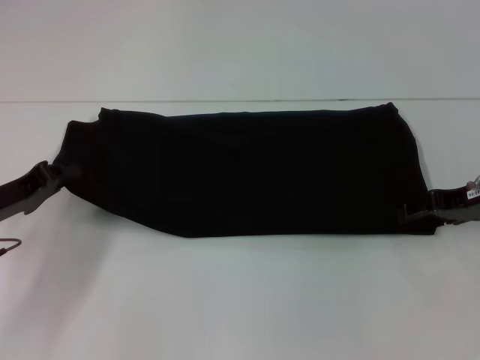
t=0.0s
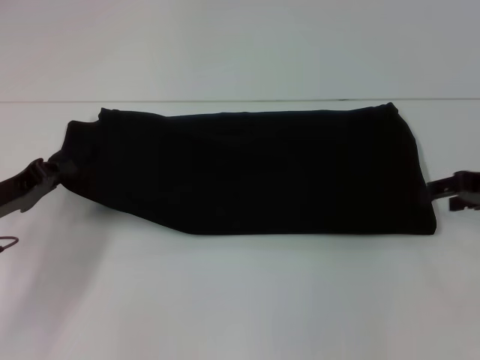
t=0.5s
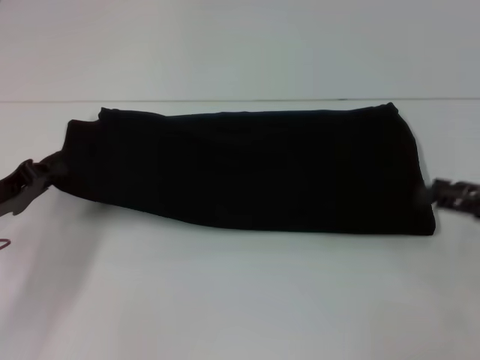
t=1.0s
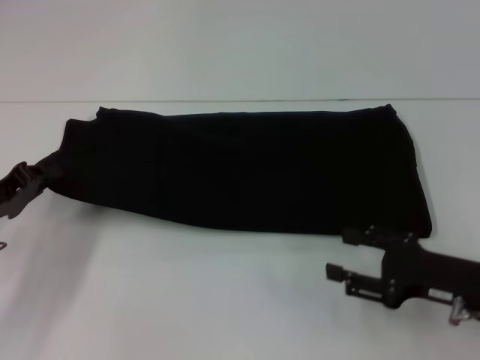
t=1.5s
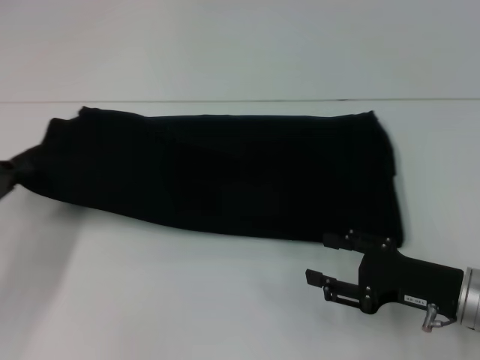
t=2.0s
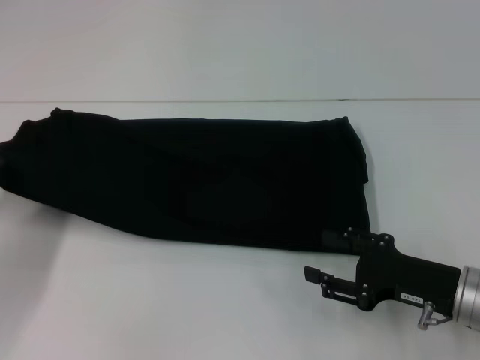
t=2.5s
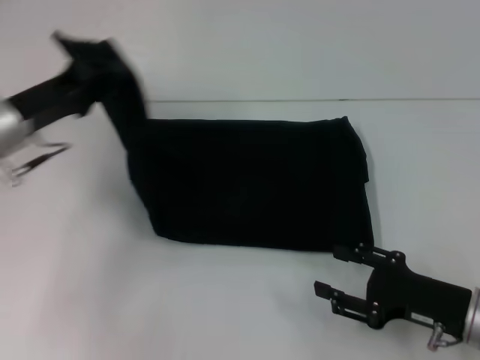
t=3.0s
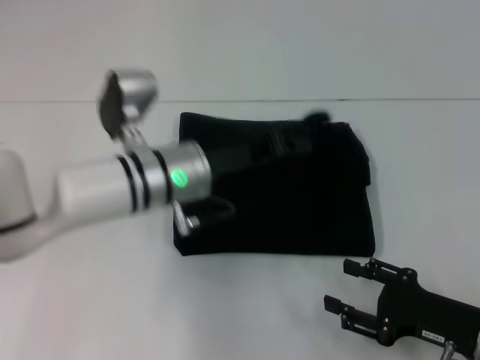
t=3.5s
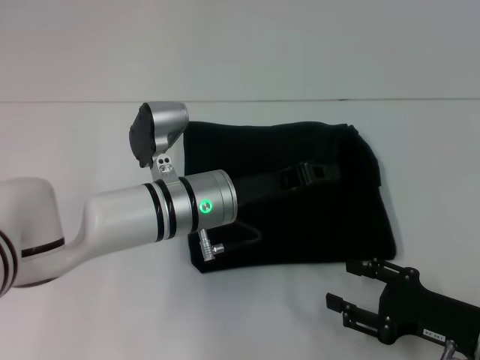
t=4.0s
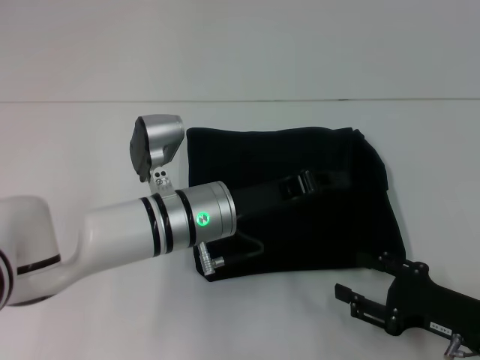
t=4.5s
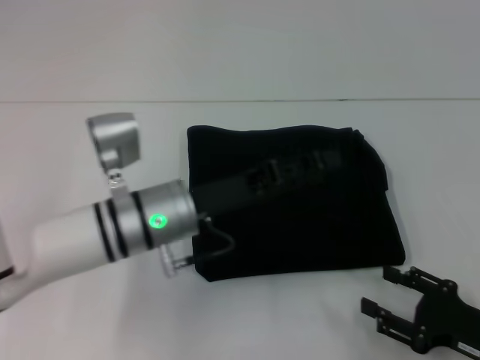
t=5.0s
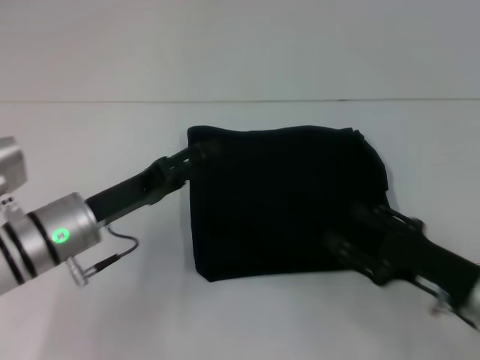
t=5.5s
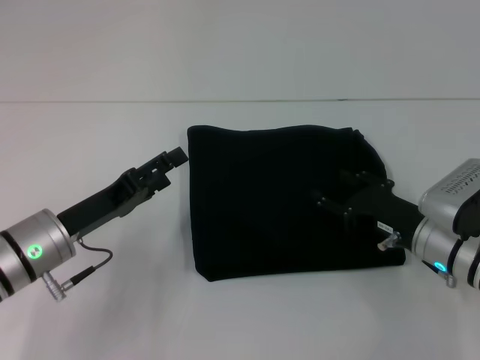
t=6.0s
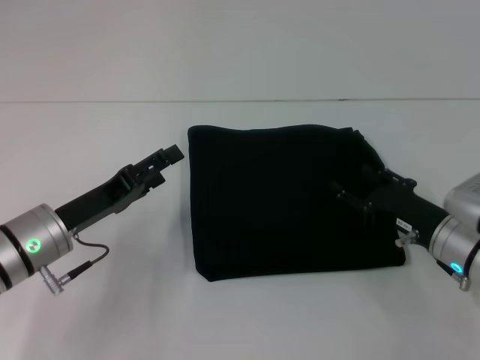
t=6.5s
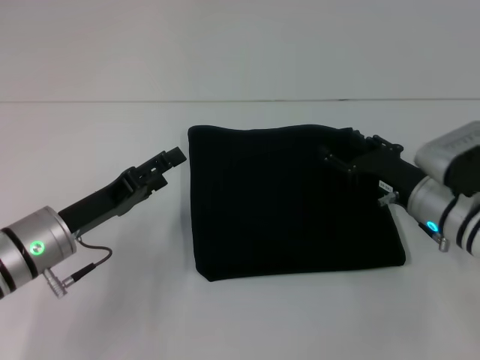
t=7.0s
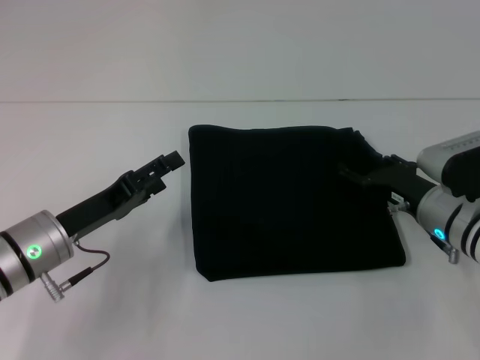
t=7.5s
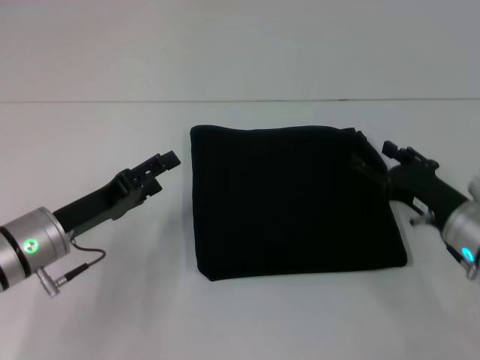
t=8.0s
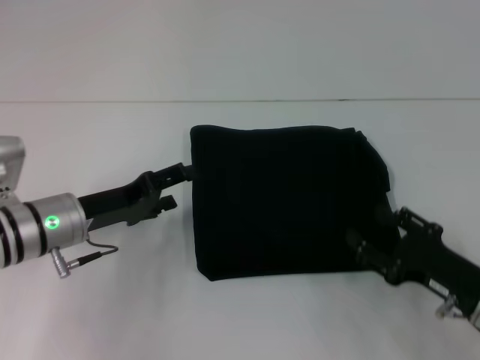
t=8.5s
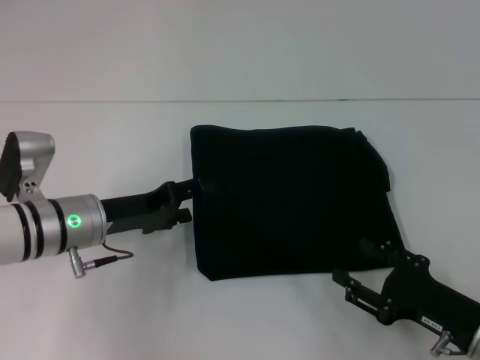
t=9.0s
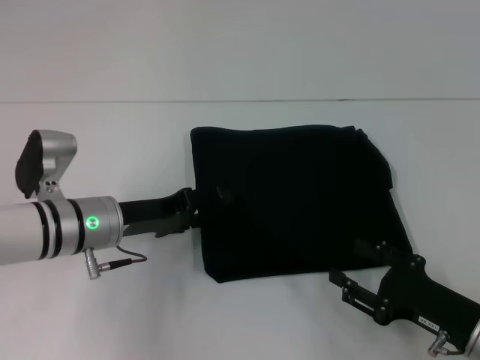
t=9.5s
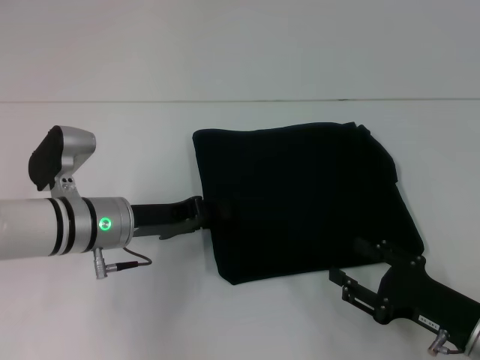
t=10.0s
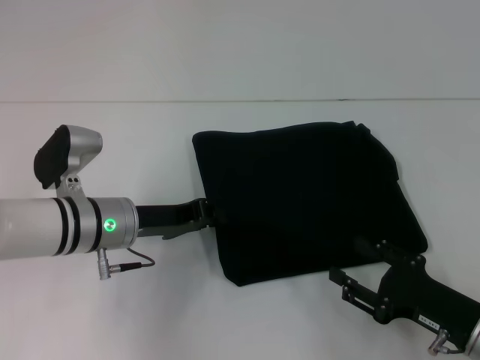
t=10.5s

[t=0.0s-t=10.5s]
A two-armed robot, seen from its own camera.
Step, t=0.0s to t=5.5s: Fold the clothes with your left hand.
t=0.0s to t=2.0s: The right gripper goes some 15 cm backward and downward.
t=2.0s to t=4.0s: The left gripper shifts roughly 30 cm to the right.
t=4.0s to t=6.5s: The right gripper travels forward by approximately 10 cm, while the left gripper shifts approximately 15 cm to the left, and opens up.
t=6.5s to t=8.5s: The right gripper travels backward by about 5 cm.
t=8.5s to t=10.5s: The left gripper goes some 5 cm to the right, and closes its fingers.

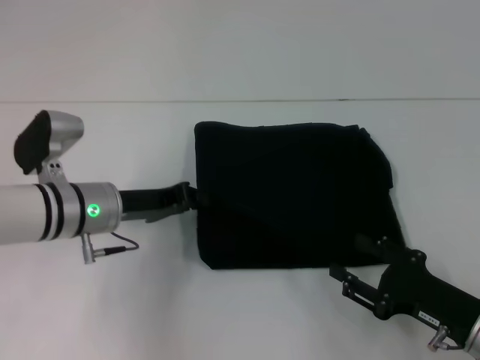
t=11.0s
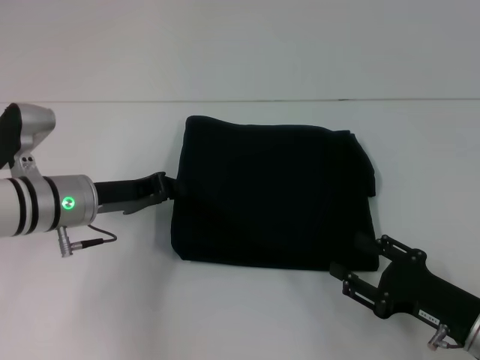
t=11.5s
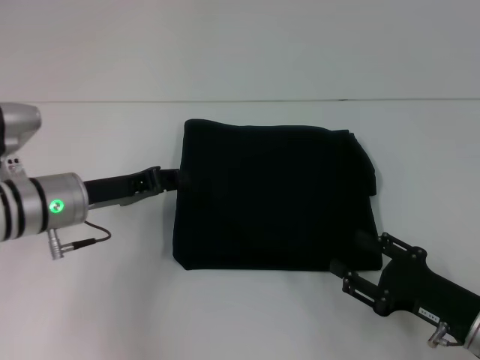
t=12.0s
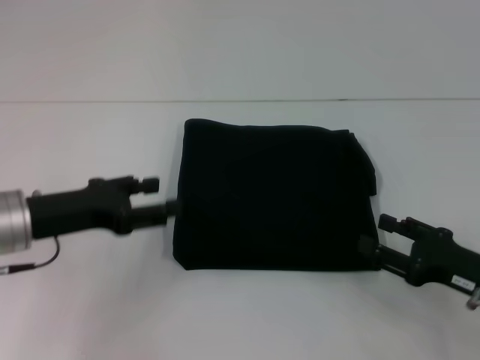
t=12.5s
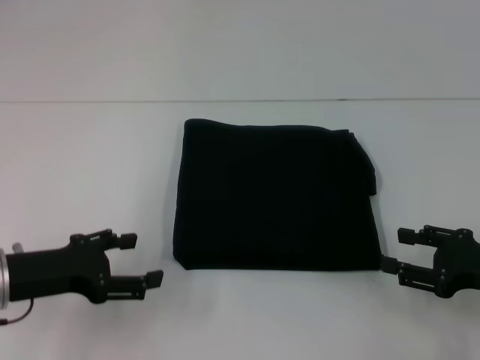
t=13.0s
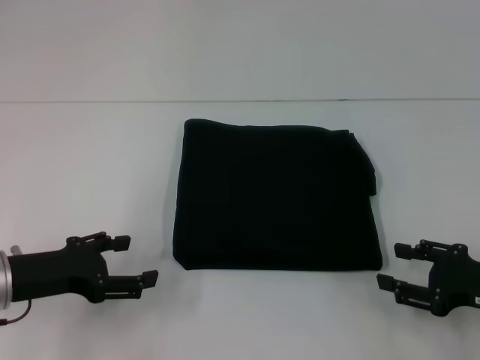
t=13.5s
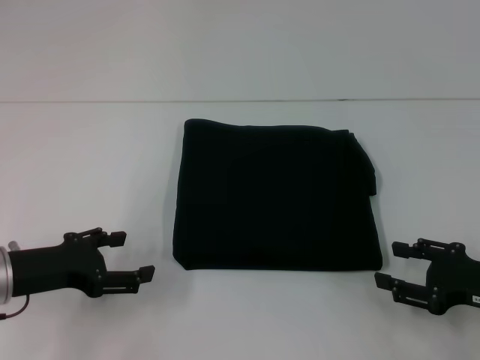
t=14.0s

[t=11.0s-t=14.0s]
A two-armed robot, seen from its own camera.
t=11.0s to t=12.5s: The left gripper heads to the left and backward, covering some 10 cm, and opens up. Meanwhile the right gripper moves some 5 cm.
t=12.5s to t=14.0s: The left gripper ends up roughly 5 cm from where it was, and opens up.

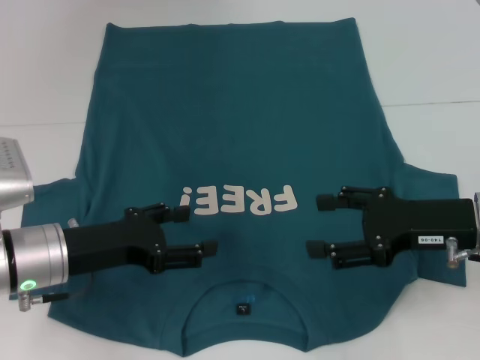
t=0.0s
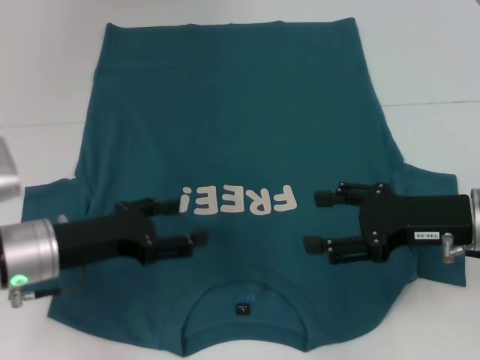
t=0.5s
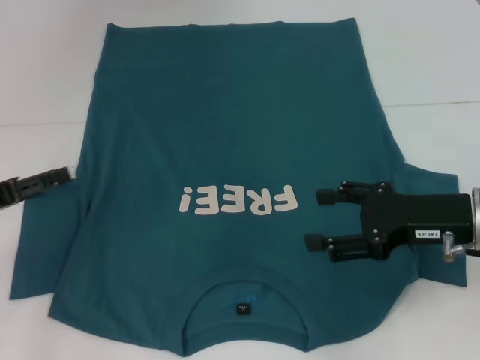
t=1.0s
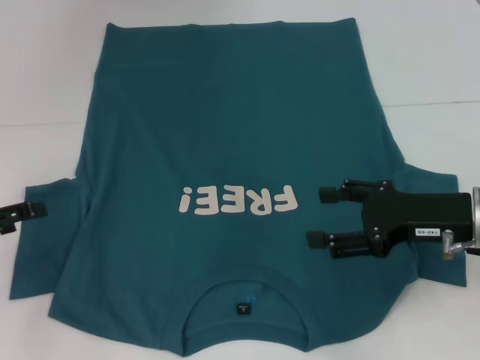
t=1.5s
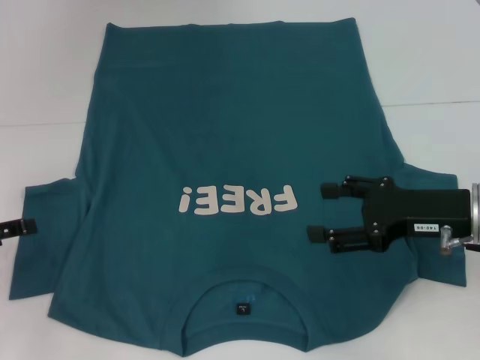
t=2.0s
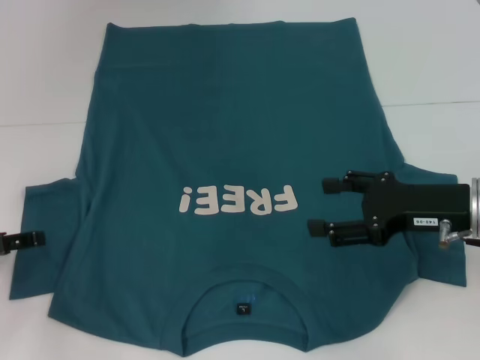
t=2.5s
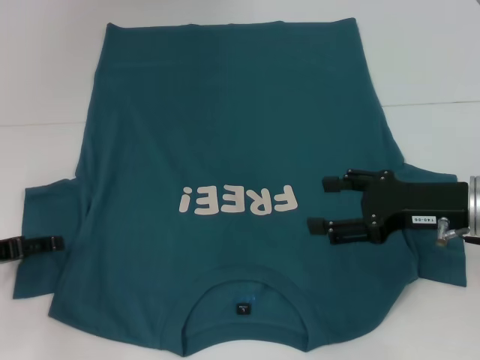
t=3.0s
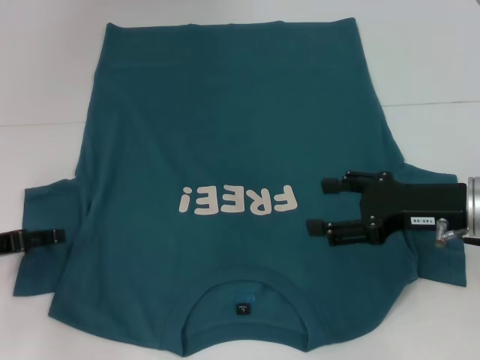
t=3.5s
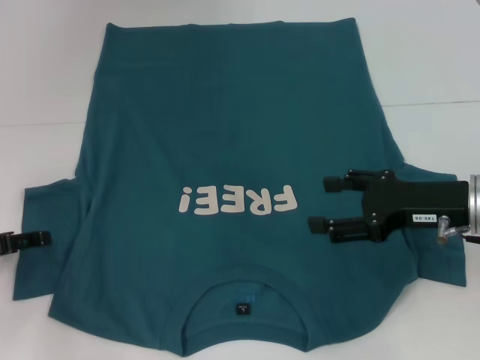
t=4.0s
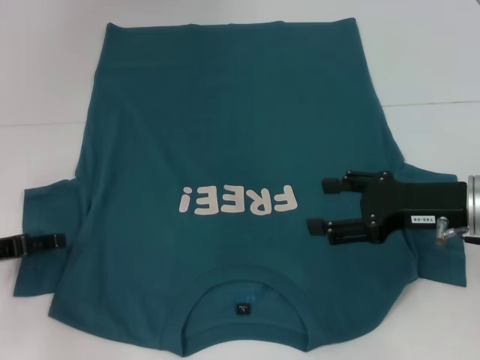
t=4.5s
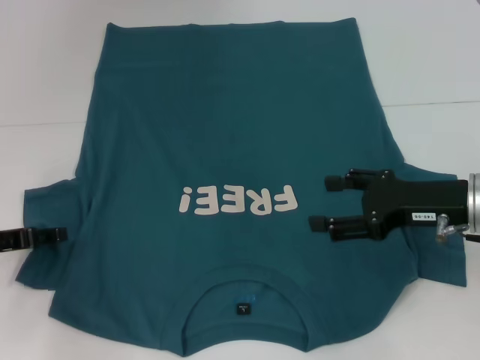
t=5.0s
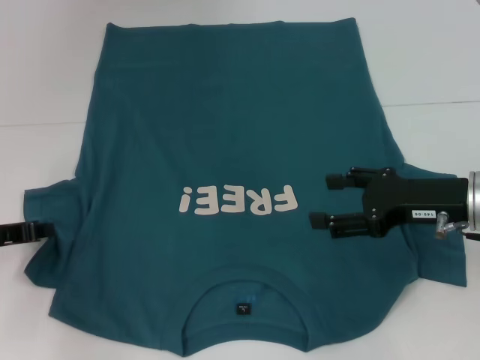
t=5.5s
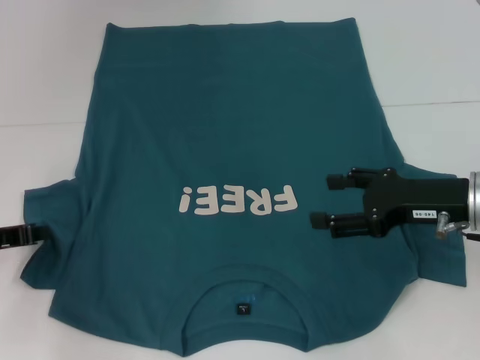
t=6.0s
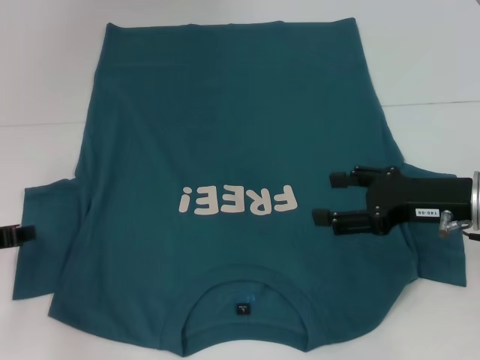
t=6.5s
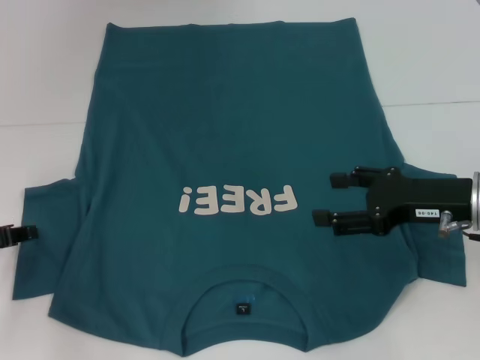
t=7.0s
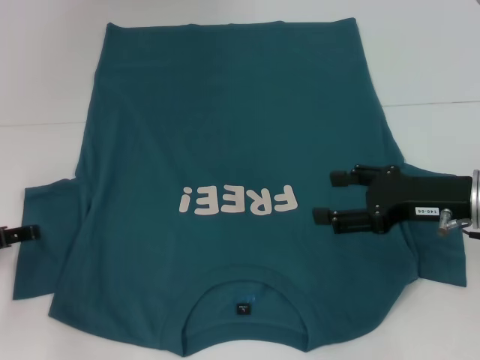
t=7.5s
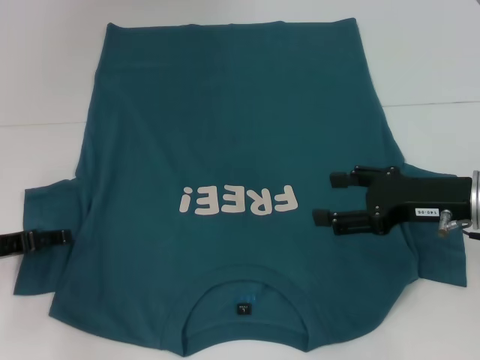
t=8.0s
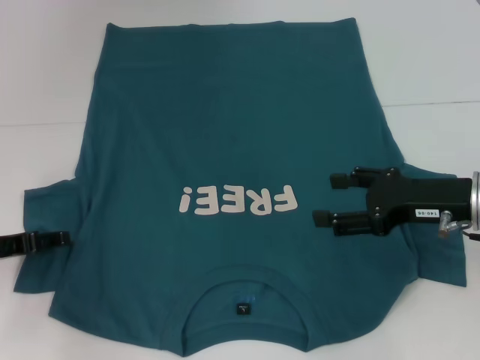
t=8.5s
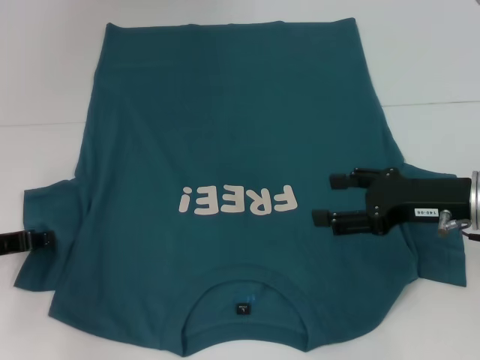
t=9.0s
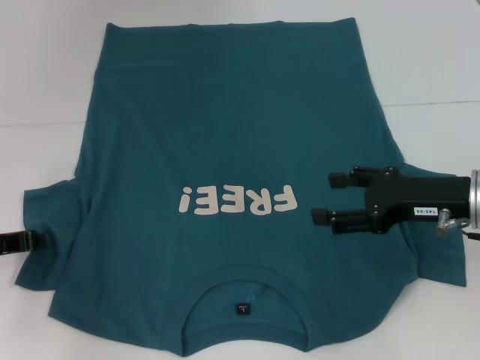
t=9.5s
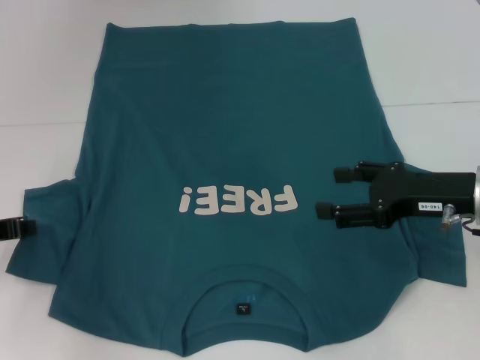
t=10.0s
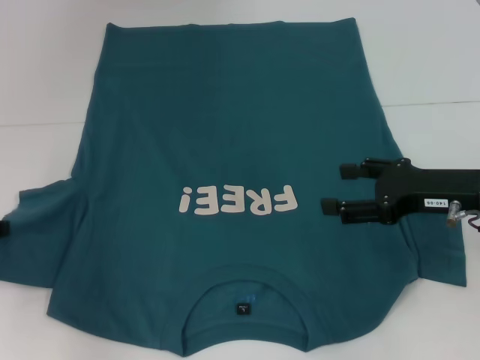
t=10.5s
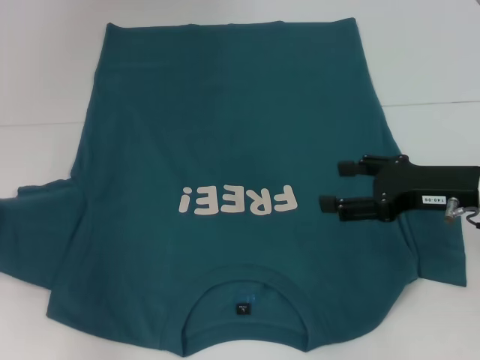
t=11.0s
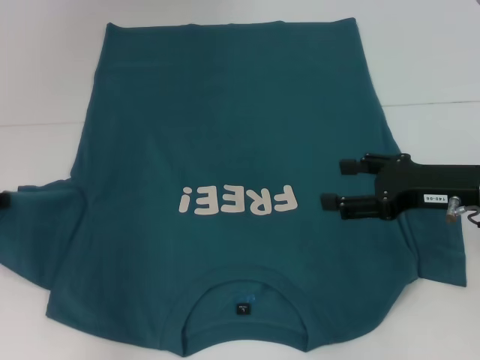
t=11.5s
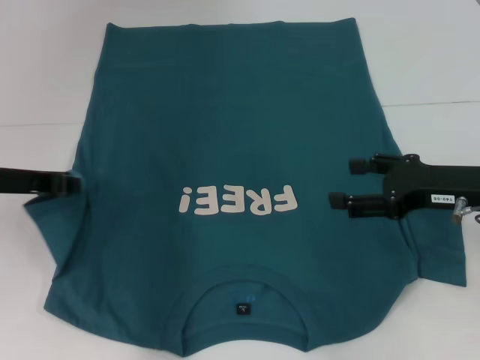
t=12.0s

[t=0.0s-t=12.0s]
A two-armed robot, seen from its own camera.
t=0.0s to t=2.0s: The left gripper is displaced to the left by approximately 15 cm.
t=2.0s to t=4.0s: There are only small adjustments of the grippers.
t=4.0s to t=6.0s: The left gripper closes.
t=6.0s to t=8.0s: The left gripper opens up.
t=8.0s to t=10.0s: The left gripper closes.
t=10.0s to t=12.0s: The left gripper is displaced upward and to the right by some 10 cm.
